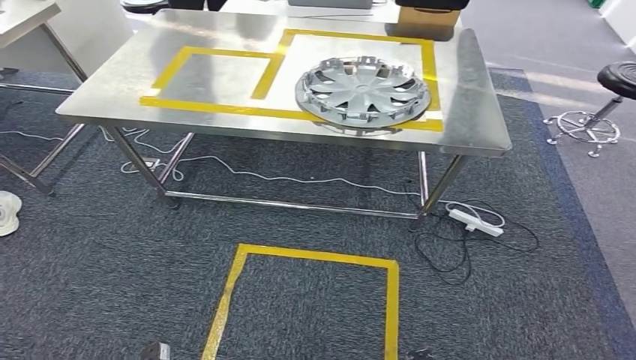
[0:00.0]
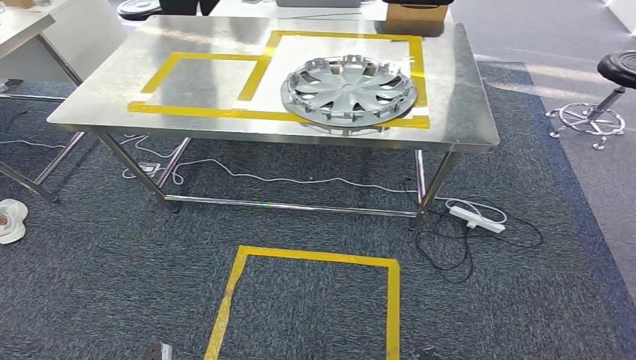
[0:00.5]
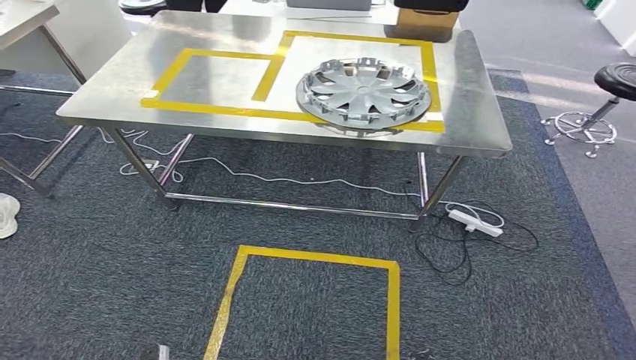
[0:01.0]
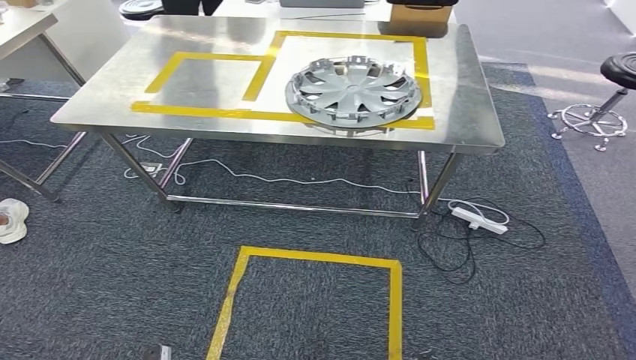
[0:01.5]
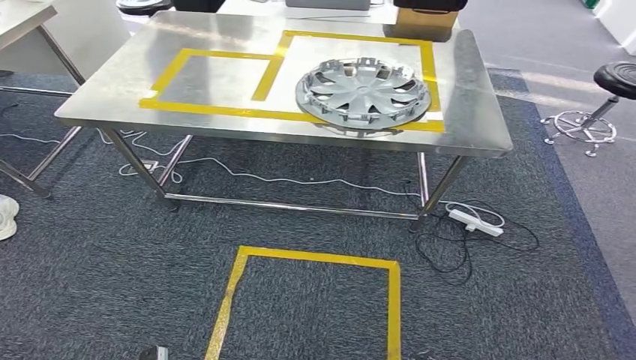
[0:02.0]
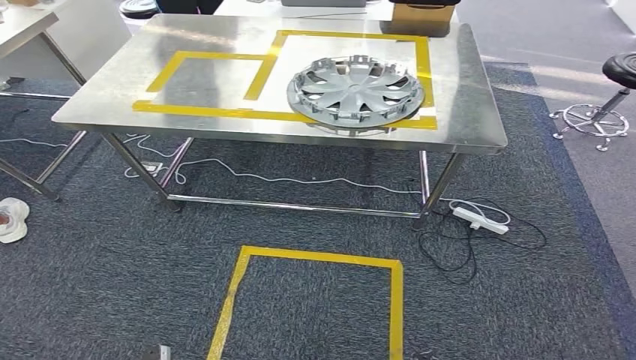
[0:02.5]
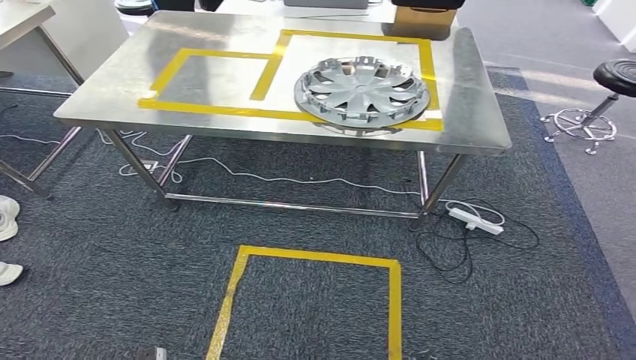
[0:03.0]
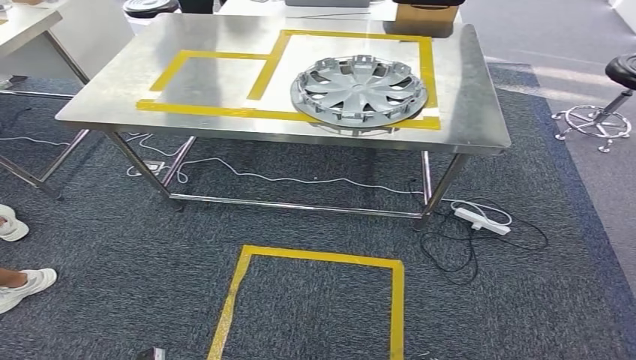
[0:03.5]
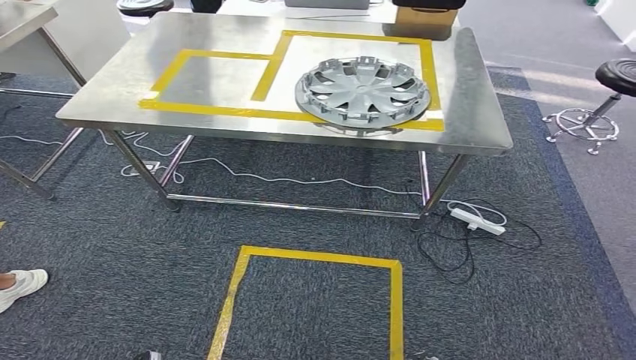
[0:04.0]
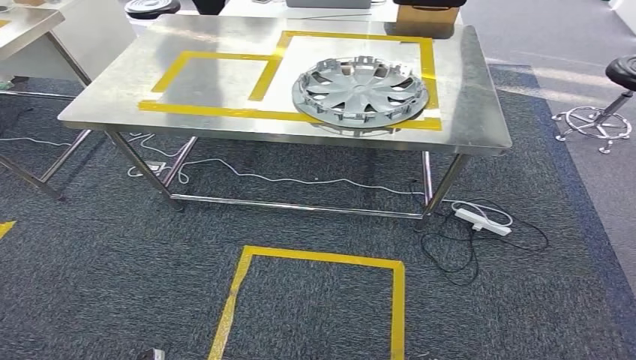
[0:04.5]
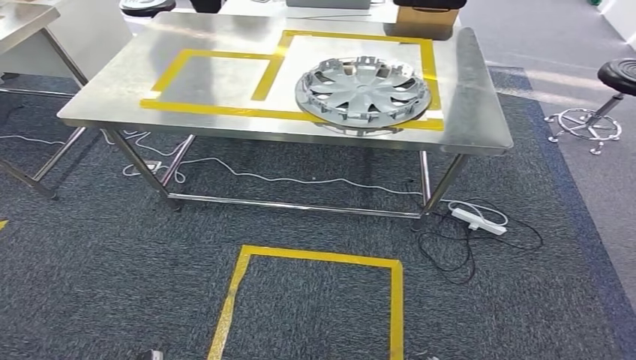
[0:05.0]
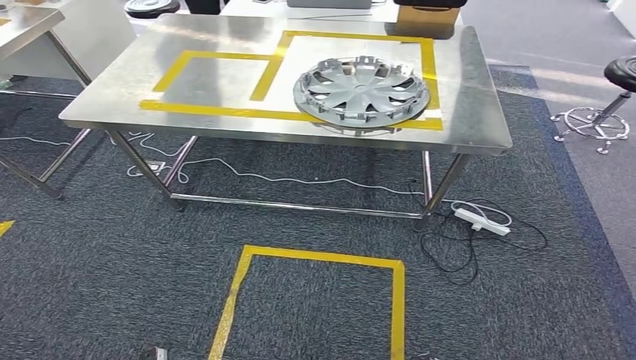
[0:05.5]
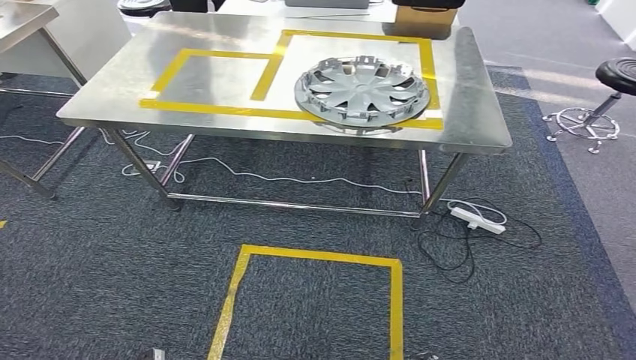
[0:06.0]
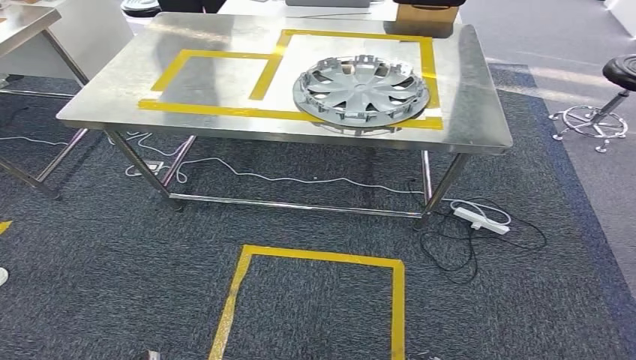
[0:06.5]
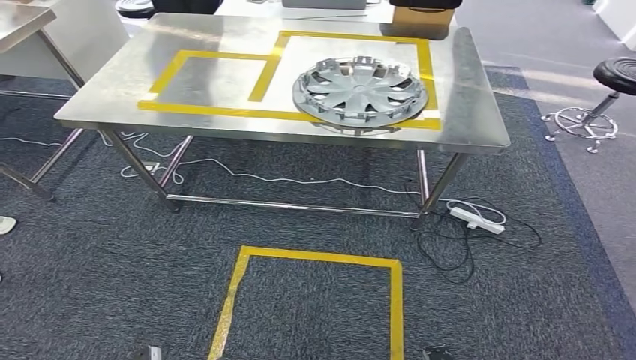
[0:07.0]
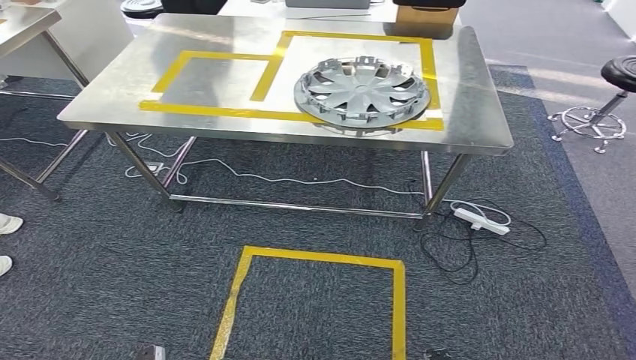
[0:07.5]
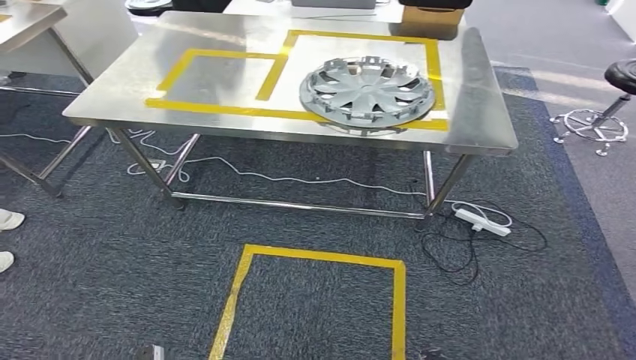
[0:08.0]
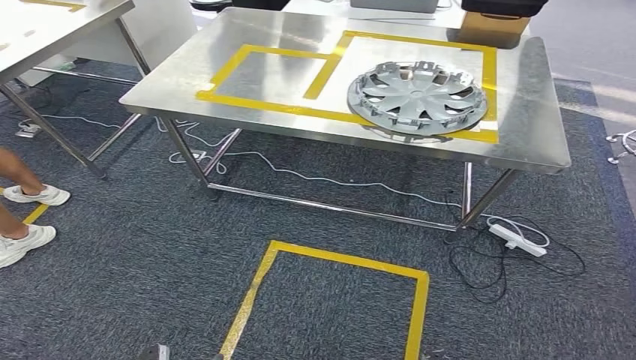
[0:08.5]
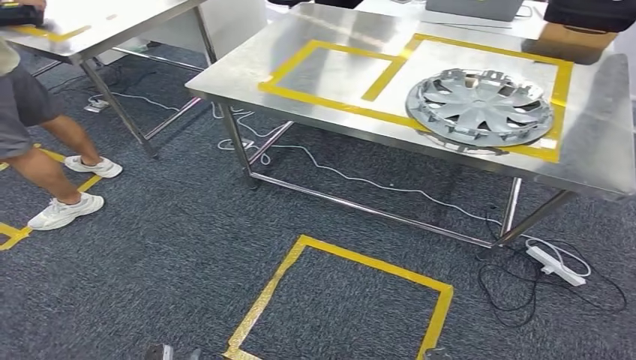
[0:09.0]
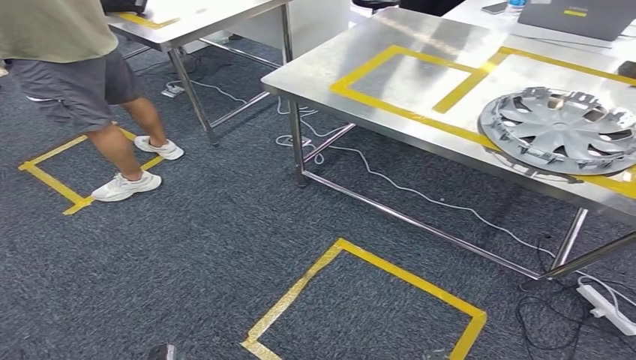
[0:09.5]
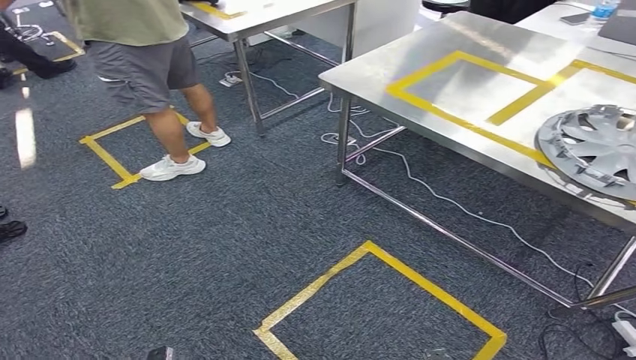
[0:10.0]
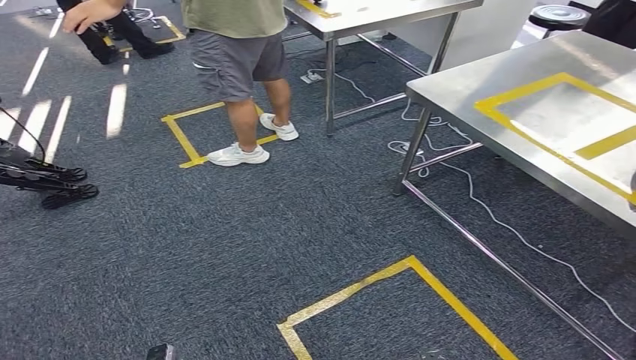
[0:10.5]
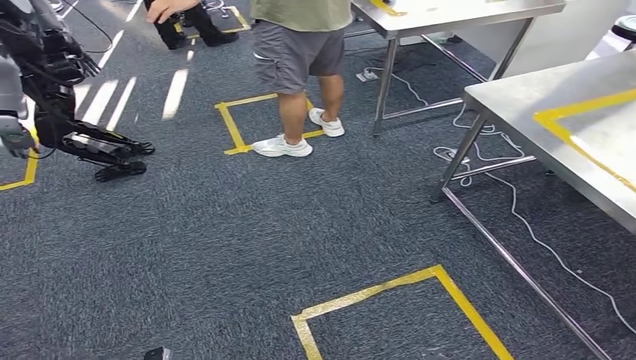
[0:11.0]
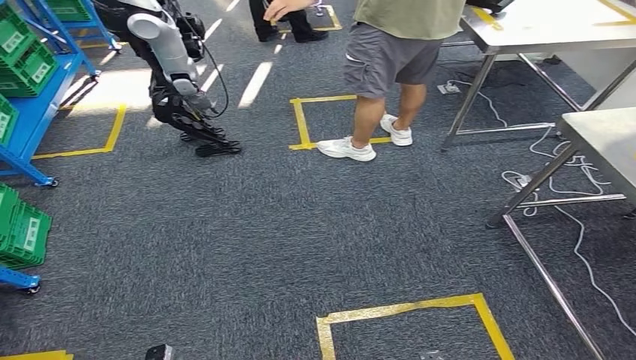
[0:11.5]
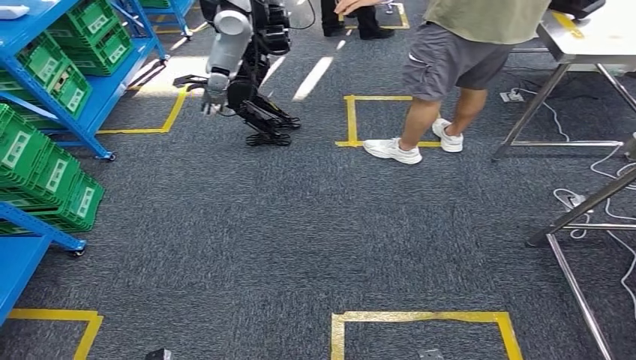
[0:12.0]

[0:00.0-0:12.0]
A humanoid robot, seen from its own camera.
0:00.0 to 0:08.0: Neither hand changes place.

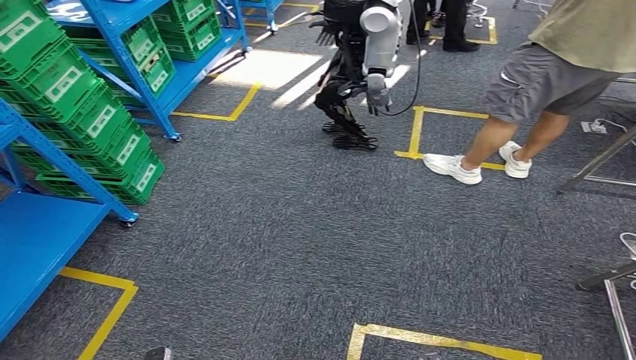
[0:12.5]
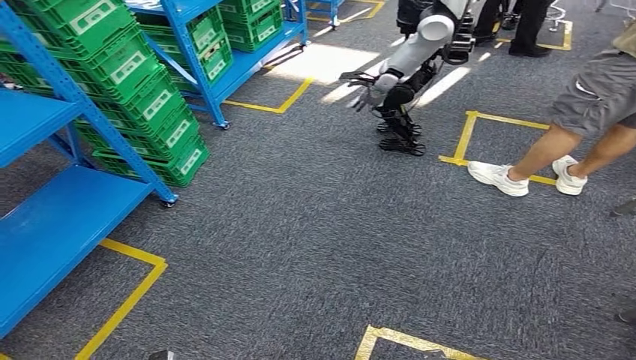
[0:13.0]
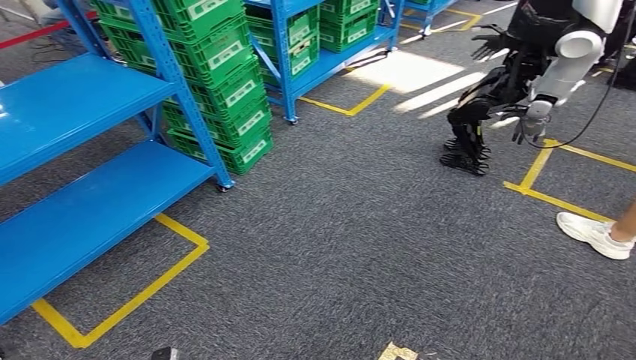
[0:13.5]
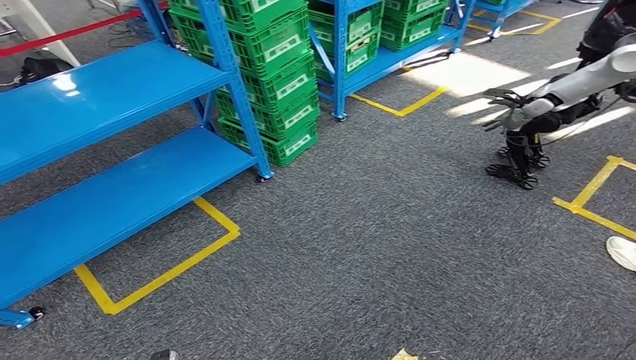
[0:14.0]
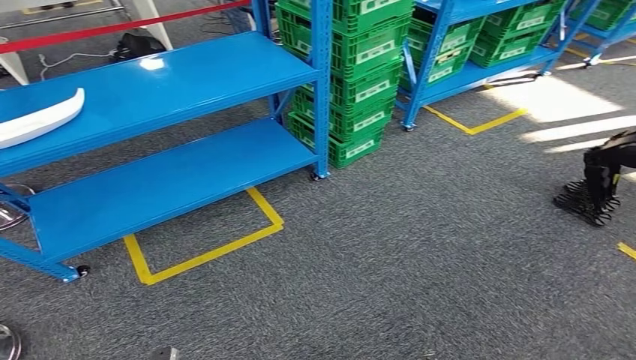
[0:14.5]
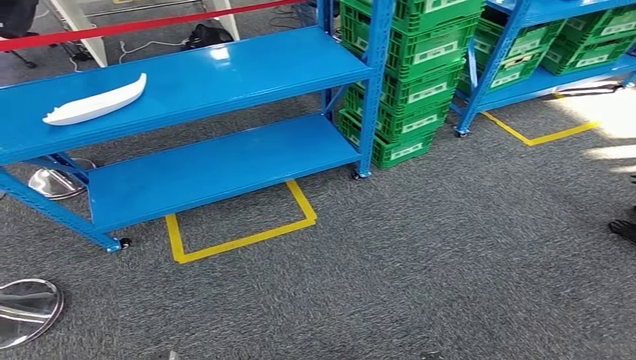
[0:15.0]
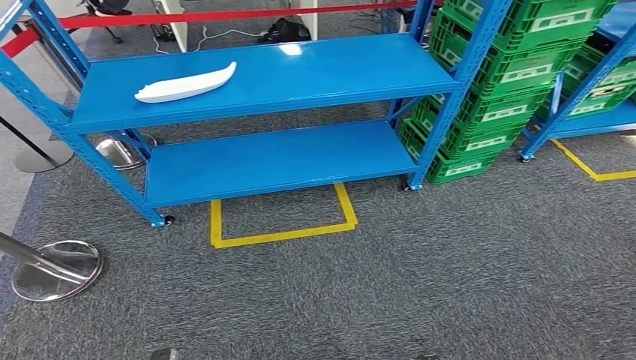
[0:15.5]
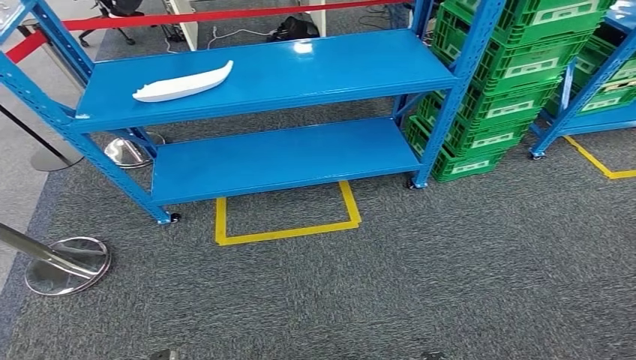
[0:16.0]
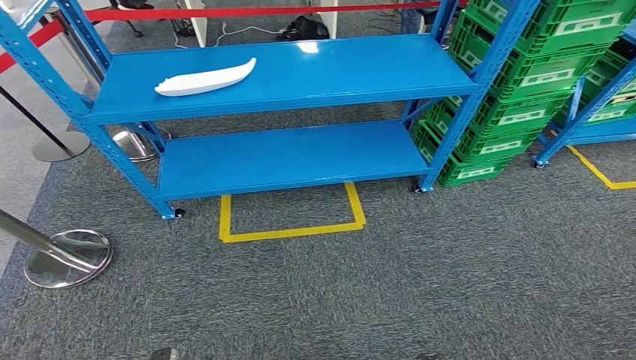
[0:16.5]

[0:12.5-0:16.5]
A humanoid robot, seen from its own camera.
Step, 0:12.5 to 0:16.5: Move to the initial position at the workbench.
